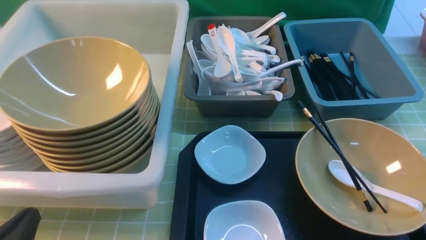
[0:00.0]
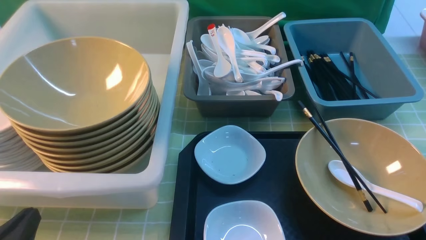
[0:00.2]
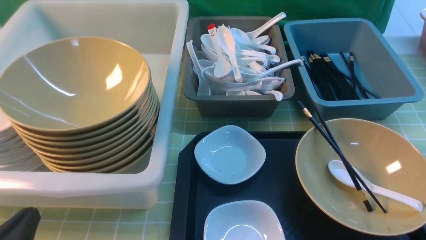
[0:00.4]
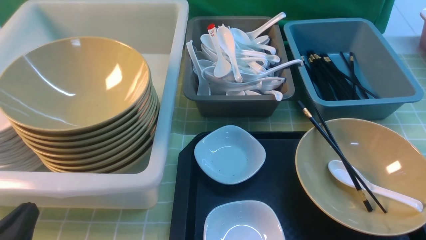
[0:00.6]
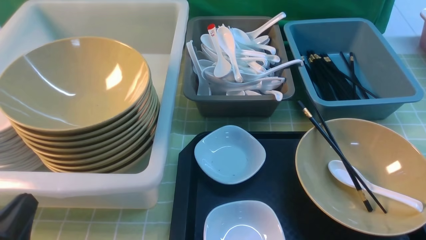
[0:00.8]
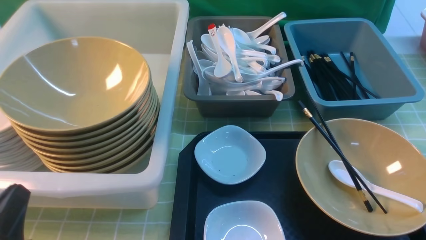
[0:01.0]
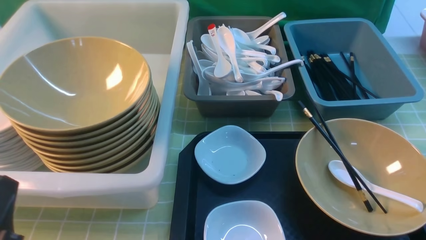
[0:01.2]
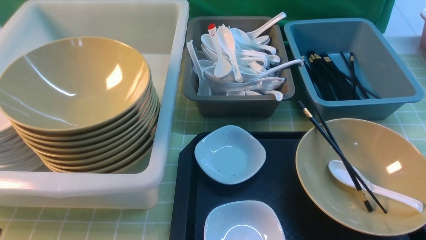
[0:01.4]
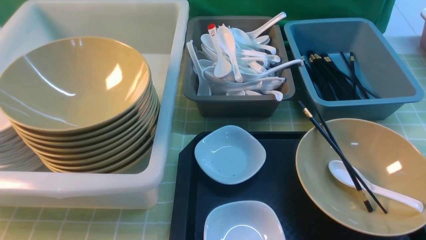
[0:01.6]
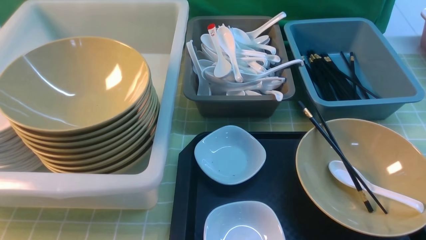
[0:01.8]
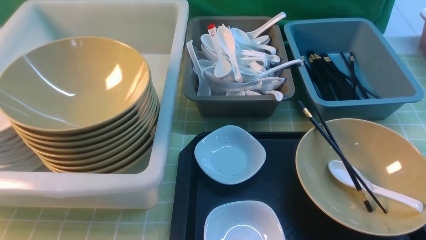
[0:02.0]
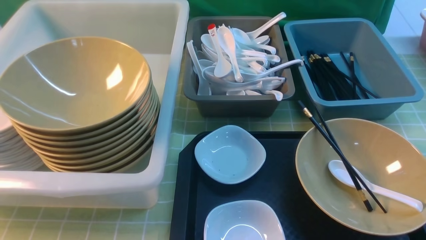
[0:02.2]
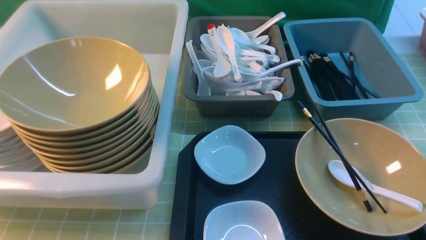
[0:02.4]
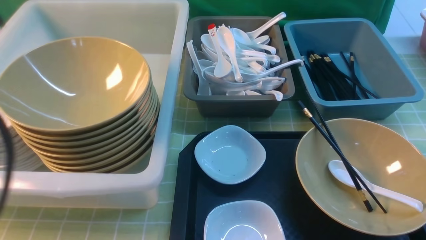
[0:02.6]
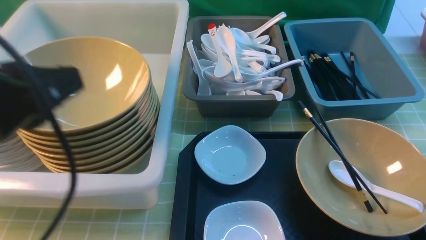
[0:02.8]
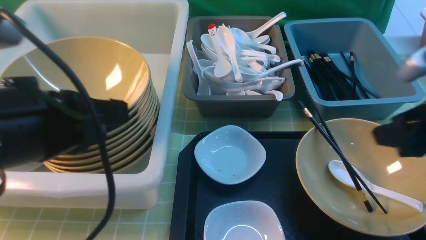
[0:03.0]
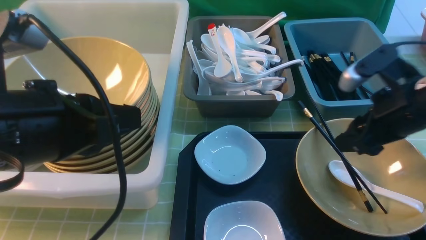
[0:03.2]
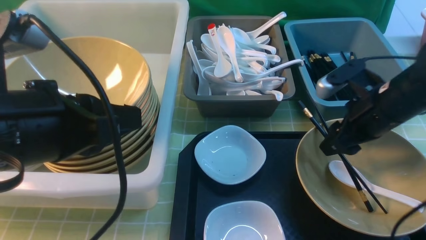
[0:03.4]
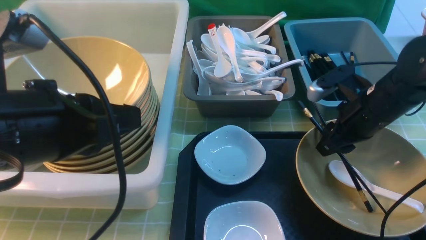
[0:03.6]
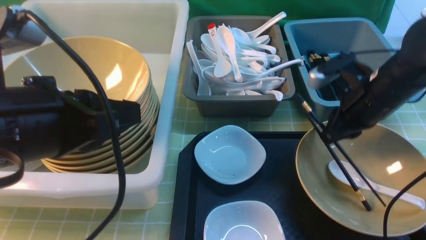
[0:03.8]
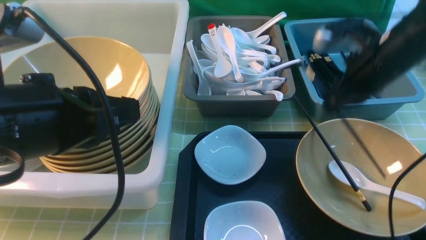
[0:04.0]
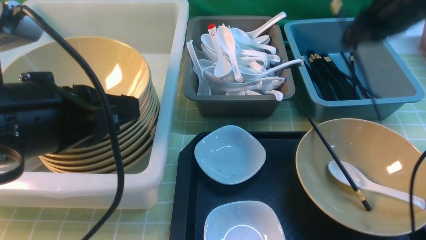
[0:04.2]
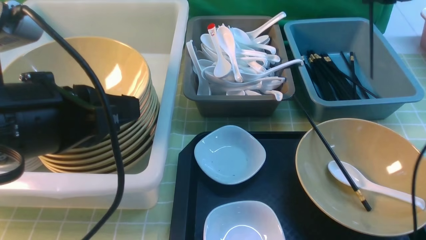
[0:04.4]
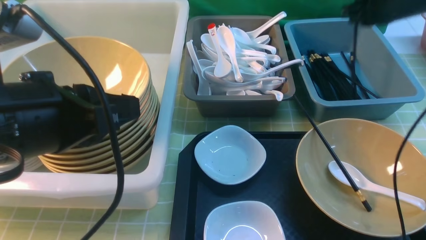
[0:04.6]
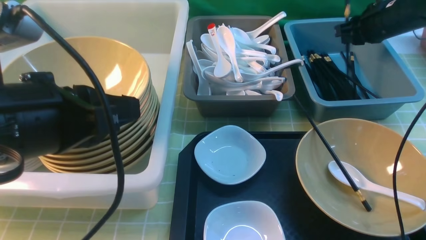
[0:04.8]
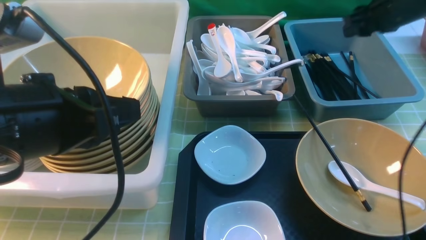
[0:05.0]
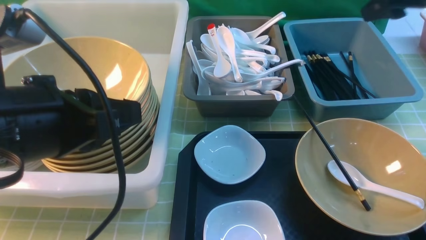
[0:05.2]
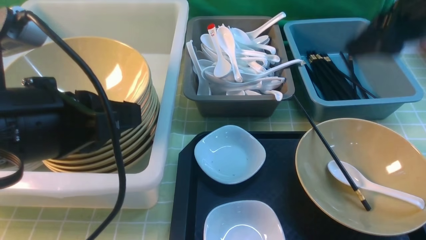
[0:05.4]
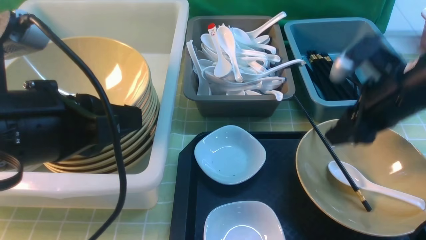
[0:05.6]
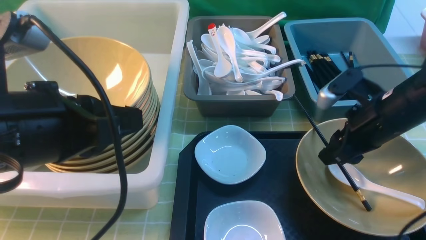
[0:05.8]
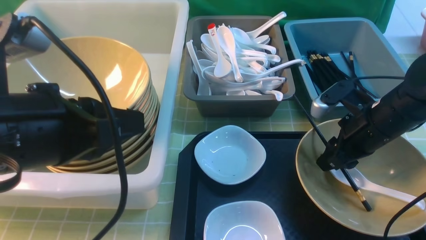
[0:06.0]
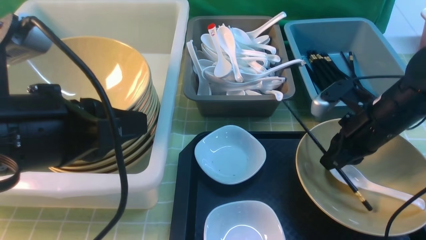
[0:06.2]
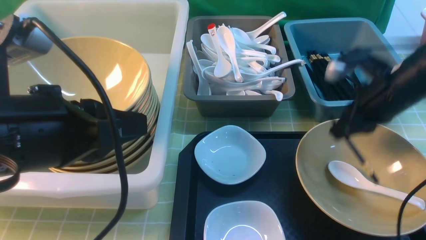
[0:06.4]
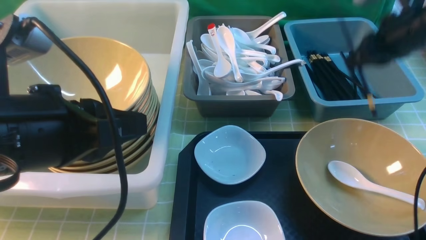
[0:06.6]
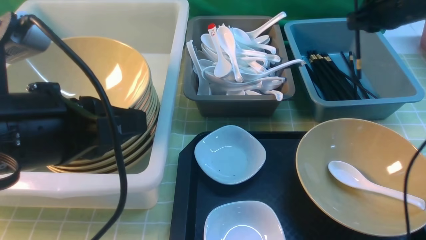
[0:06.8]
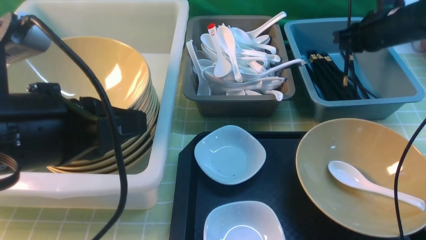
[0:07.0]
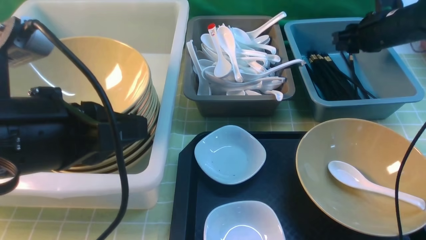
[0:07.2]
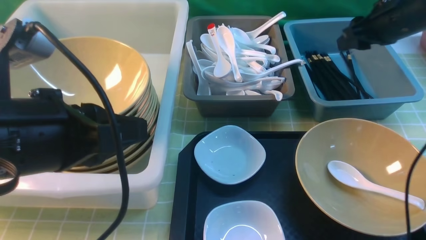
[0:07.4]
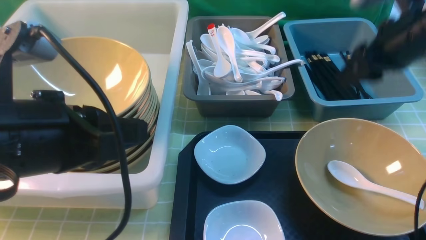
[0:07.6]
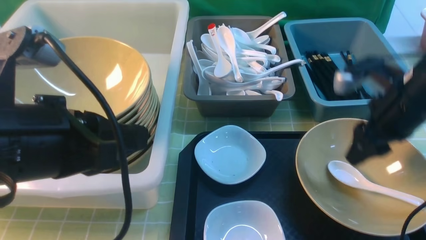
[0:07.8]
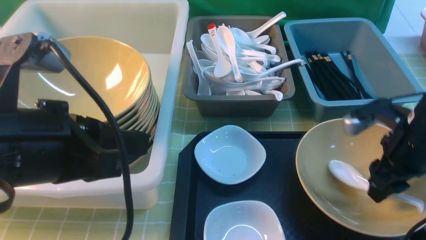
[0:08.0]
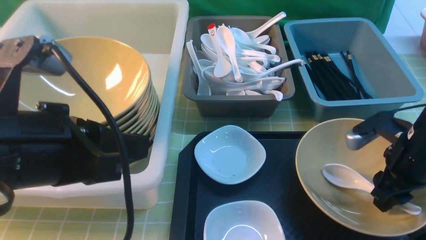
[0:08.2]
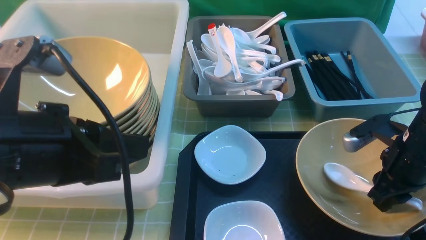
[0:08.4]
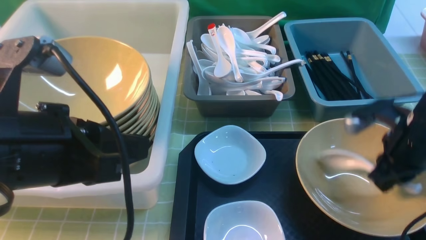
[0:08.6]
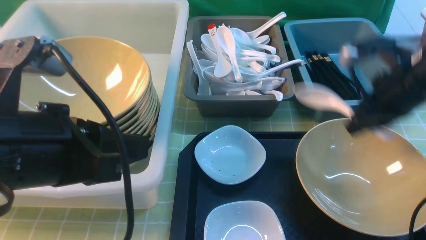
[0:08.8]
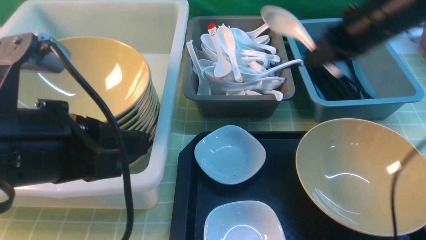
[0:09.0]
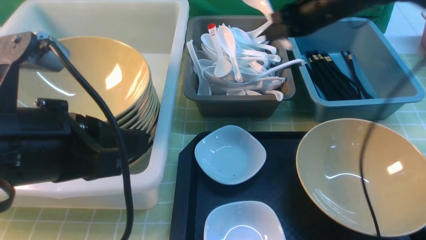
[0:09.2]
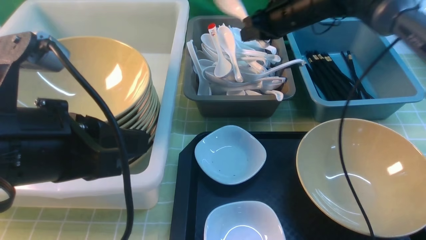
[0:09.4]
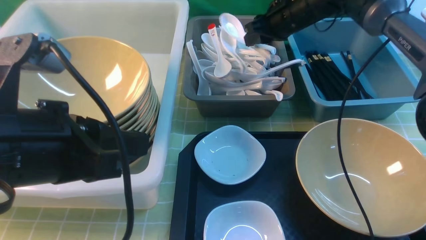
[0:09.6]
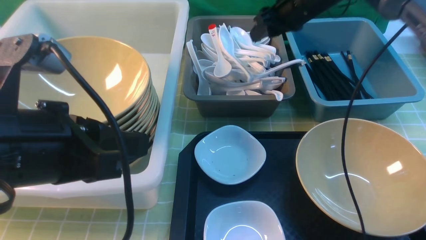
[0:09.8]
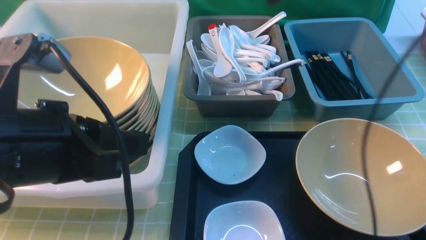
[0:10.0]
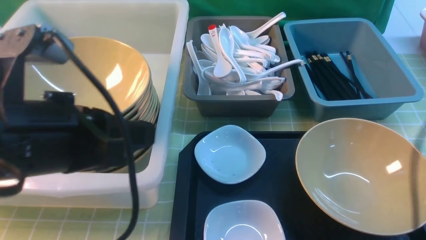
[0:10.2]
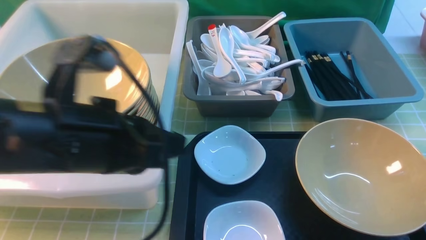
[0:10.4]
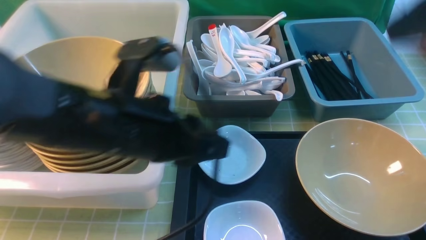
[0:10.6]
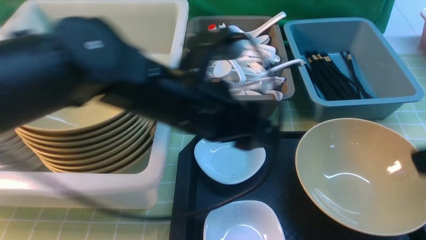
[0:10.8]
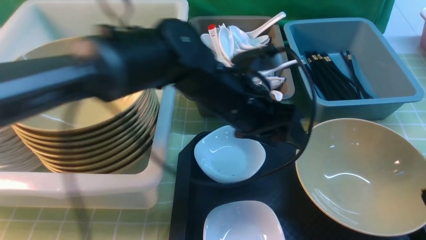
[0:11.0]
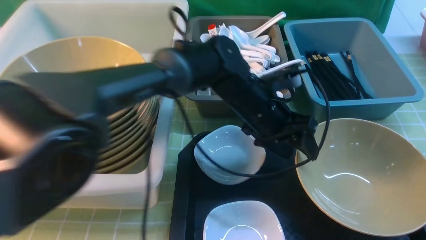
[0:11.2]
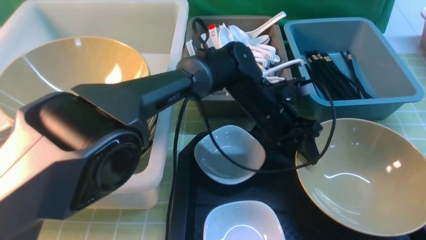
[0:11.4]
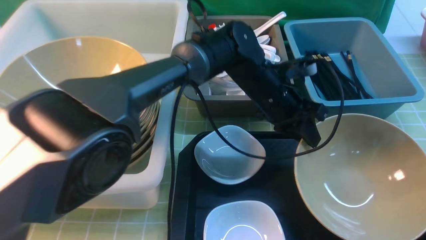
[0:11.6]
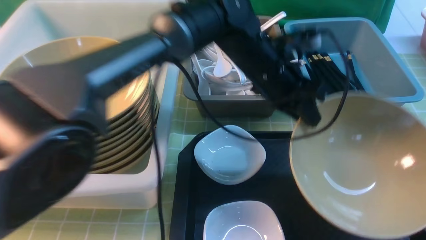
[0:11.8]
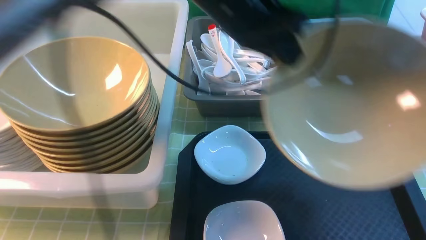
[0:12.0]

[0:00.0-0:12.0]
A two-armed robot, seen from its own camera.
Task of the whole recording: on green table put chopsticks spoon bowls plates into blue grey white boxes.
Step, 0:00.0 to 0:04.0: use the right arm to grab a chopstick.
Step, 0:04.2 to 0:04.8: use the right arm to put a chopstick into the small storage box on the right.
Step, 0:05.0 to 0:06.2: use the right arm to grab a chopstick.
Step, 0:06.4 to 0:07.4: use the right arm to put a chopstick into the small storage box on the right.
Step, 0:07.6 to 0:08.8: use the right arm to grab the soup spoon in the middle.
Step, 0:09.0 to 0:09.8: use the right arm to put the soup spoon into the small storage box in the middle.
Step, 0:10.0 to 0:11.6: use the left arm to grab the yellow noodle bowl on the left.
0:01.6 to 0:03.0: The right gripper shifts approximately 20 cm forward and upward; the left gripper is displaced upward, forward and to the right by some 20 cm.
0:03.0 to 0:04.4: The right gripper is displaced forward by approximately 20 cm, and closes up.
0:04.4 to 0:06.0: The right gripper swings up and down, some 15 cm each way, with 2 reversals.
0:06.0 to 0:07.6: The right gripper goes some 10 cm upward, and goes forward and returns, some 15 cm each way.
0:07.6 to 0:09.0: The right gripper is displaced to the left by approximately 5 cm, travels downward and back again, roughly 10 cm each way, and closes its fingers.
0:09.0 to 0:10.4: The left gripper changes place by roughly 5 cm. The right gripper shifts approximately 25 cm upward and backward, and opens.
0:10.4 to 0:12.0: The right gripper is displaced backward and downward by roughly 20 cm, and closes. The left gripper is displaced forward and to the right by about 20 cm, reaches roughly 15 cm downward, then returns, and opens and closes again.

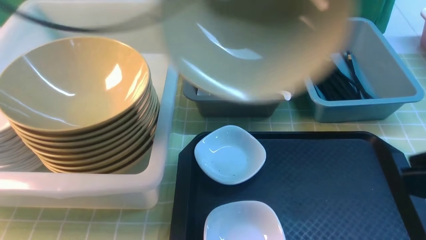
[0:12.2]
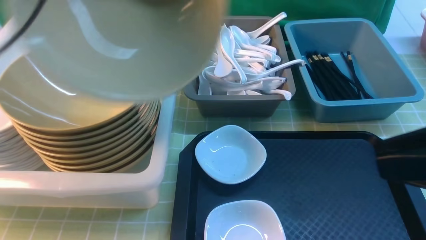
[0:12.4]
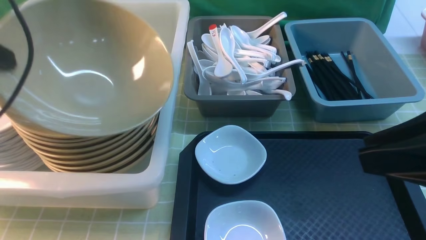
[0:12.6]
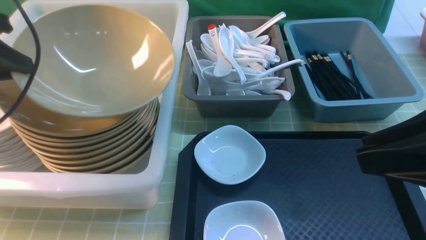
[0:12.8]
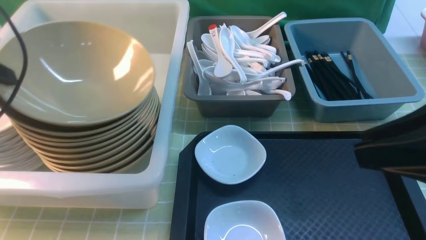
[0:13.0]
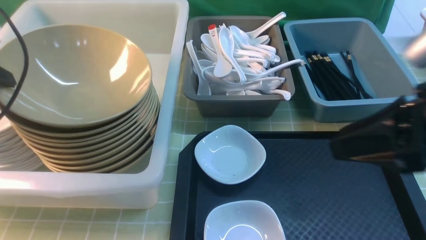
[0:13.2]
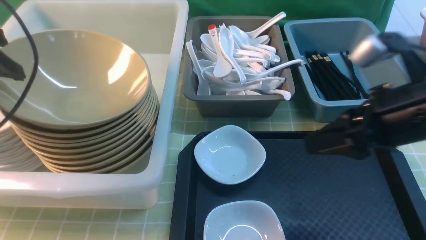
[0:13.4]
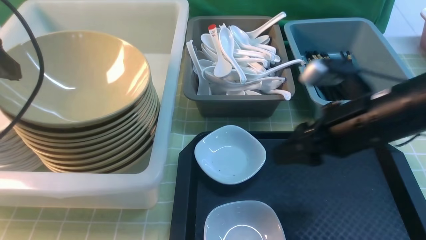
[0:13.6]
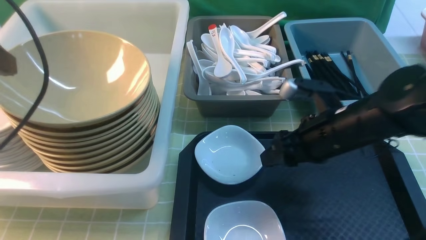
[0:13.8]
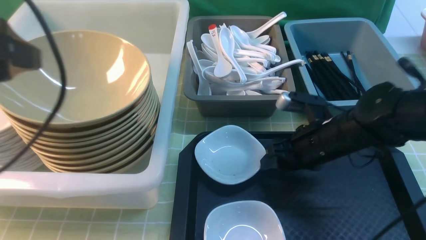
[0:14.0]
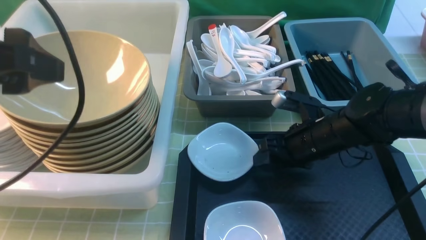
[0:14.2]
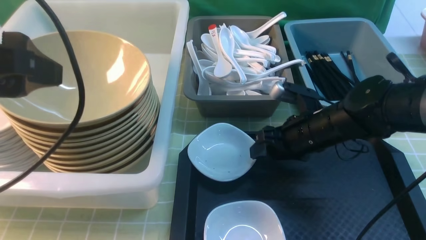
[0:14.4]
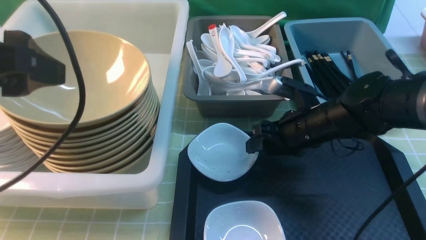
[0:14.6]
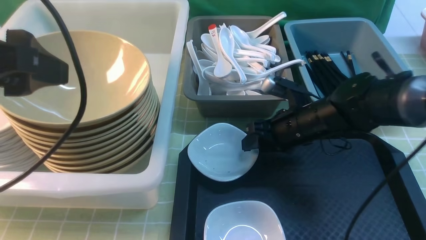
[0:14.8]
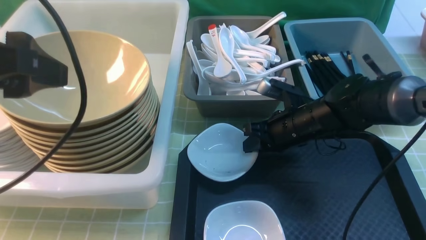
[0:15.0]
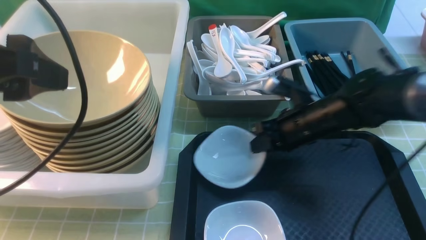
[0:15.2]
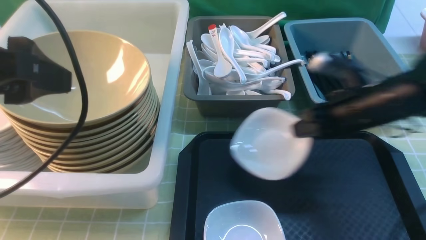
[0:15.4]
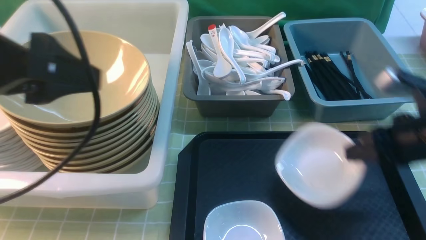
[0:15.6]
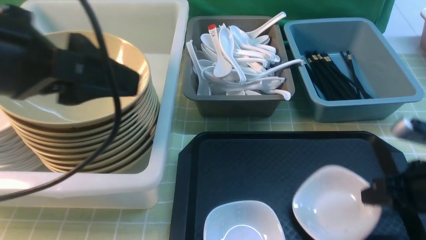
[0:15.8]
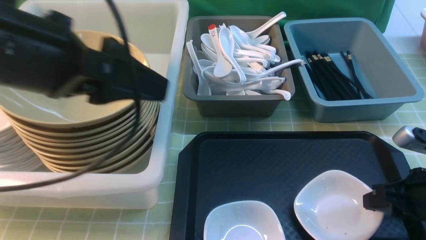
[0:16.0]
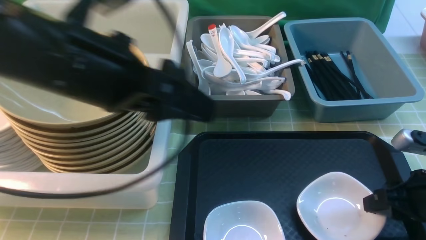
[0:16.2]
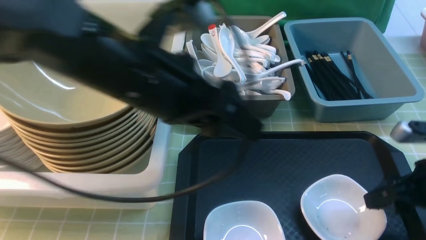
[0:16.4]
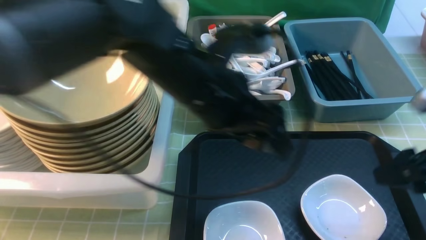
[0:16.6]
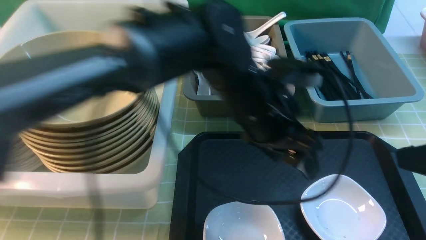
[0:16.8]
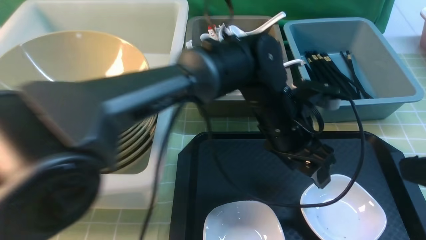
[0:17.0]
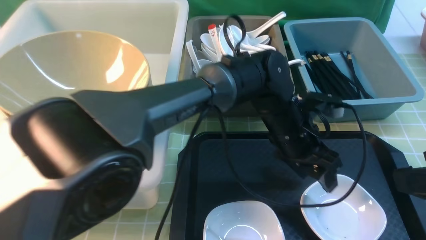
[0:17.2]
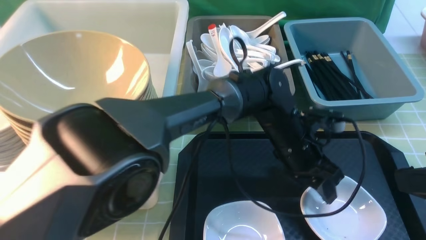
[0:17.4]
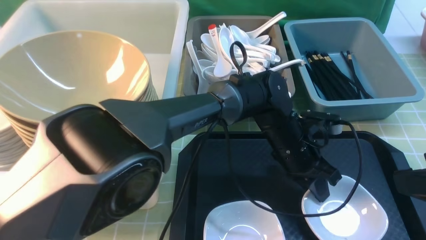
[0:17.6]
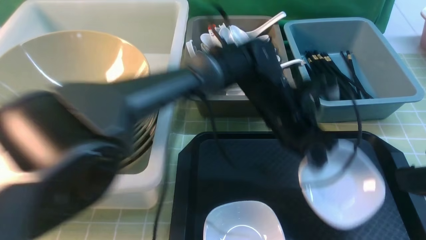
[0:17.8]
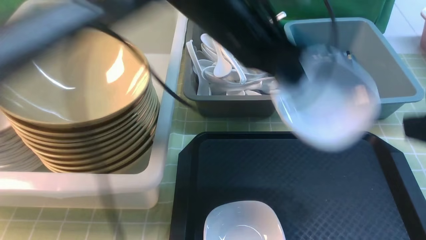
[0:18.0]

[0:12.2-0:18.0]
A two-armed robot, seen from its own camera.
Task of the whole recording: on green table put chopsticks spoon bowls plates into blue grey white boxes.
Step, 0:12.2 to 0:14.0: use the left arm to put the noodle bowl into the large storage box on the left.
Step, 0:14.2 to 0:15.2: use the right arm to grab the plate.
Step, 0:15.4 to 0:16.4: use the right arm to put the plate on the tray.
Step, 0:16.6 to 0:17.6: use the left arm to grab the plate.
0:12.2 to 0:13.6: The left gripper goes approximately 15 cm to the left, downward and backward, and opens up. The right gripper travels forward and downward by approximately 20 cm, and opens its fingers.
0:13.6 to 0:15.0: The left gripper is displaced to the right and backward by about 10 cm. Meanwhile the right gripper travels downward and forward by approximately 15 cm, and closes up.
0:15.0 to 0:16.6: The left gripper heads to the right, downward and forward, covering about 25 cm. The right gripper is displaced backward, to the right and upward by some 25 cm, and opens up.
0:16.6 to 0:18.0: The right gripper moves upward and backward, about 15 cm. The left gripper travels forward by about 10 cm, reaches approximately 15 cm downward, then returns, and closes.
